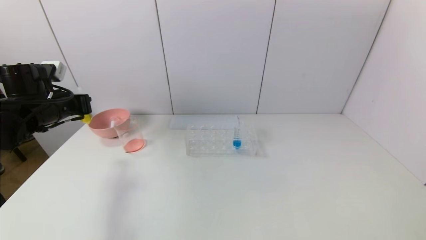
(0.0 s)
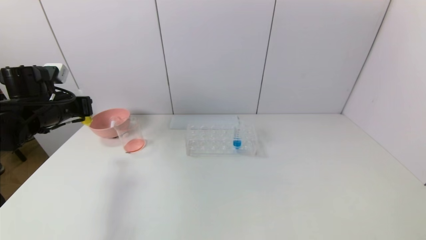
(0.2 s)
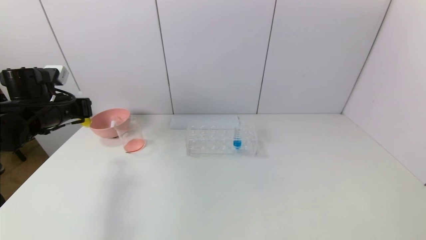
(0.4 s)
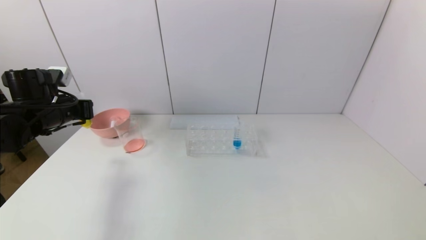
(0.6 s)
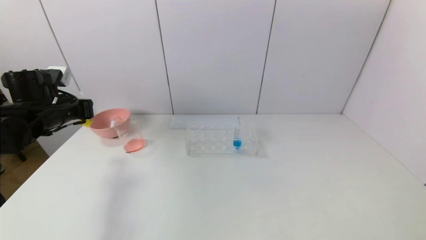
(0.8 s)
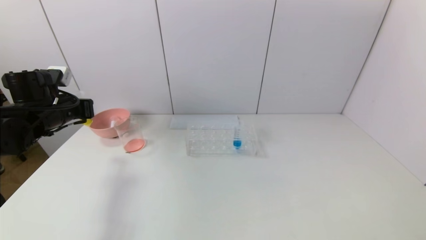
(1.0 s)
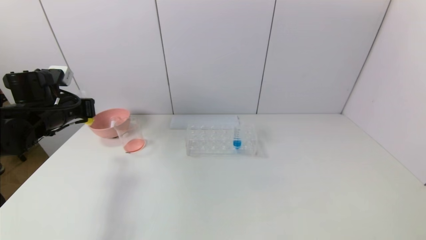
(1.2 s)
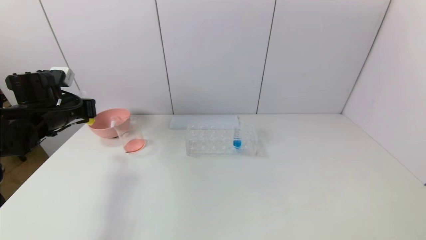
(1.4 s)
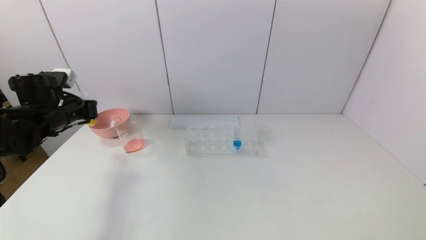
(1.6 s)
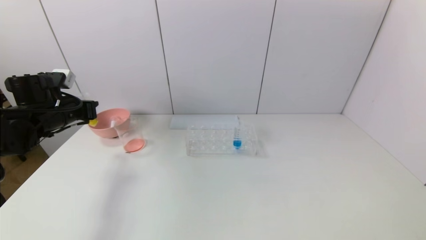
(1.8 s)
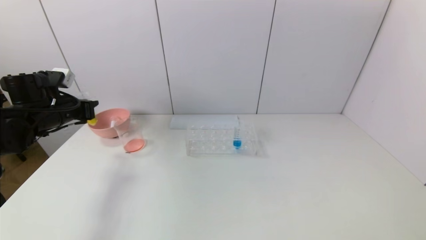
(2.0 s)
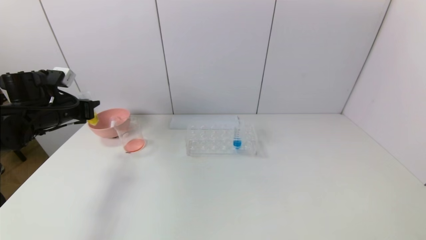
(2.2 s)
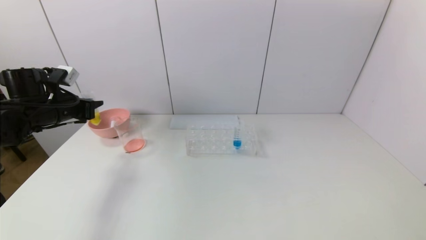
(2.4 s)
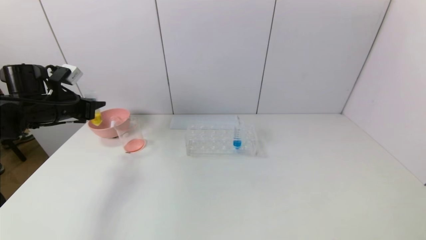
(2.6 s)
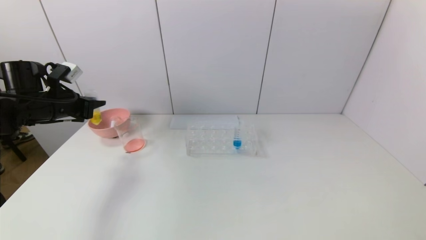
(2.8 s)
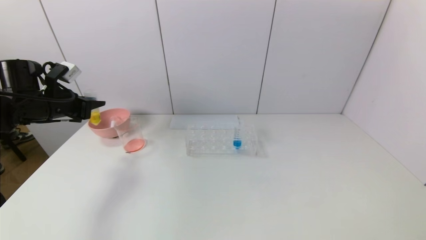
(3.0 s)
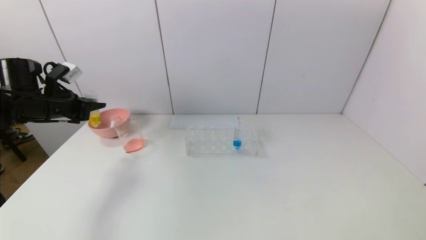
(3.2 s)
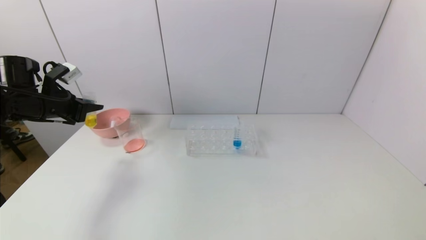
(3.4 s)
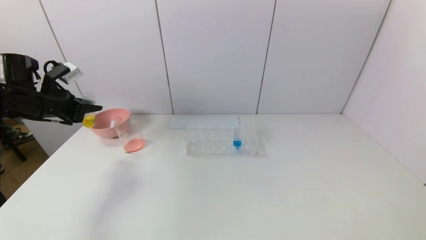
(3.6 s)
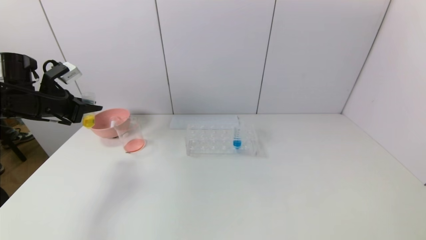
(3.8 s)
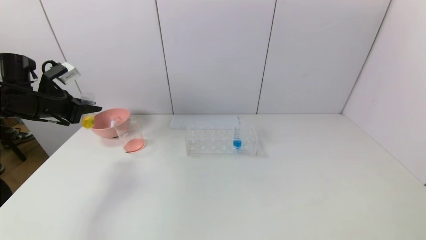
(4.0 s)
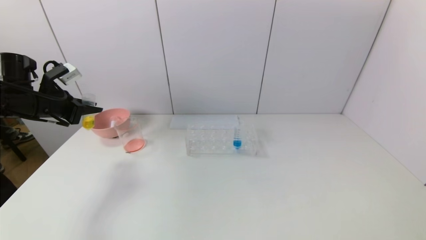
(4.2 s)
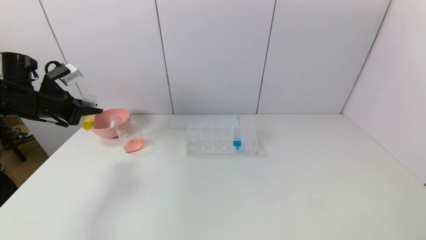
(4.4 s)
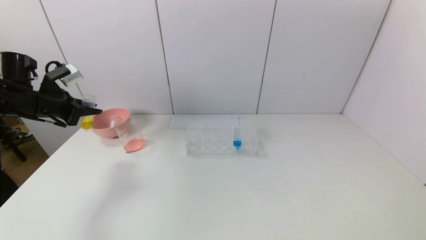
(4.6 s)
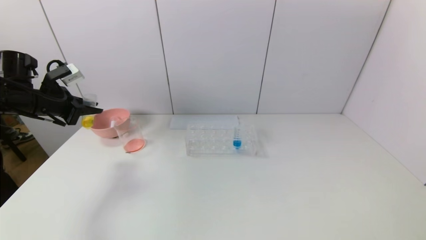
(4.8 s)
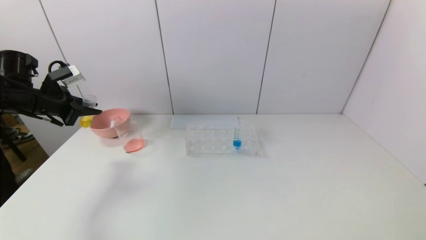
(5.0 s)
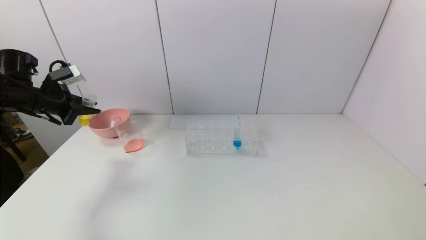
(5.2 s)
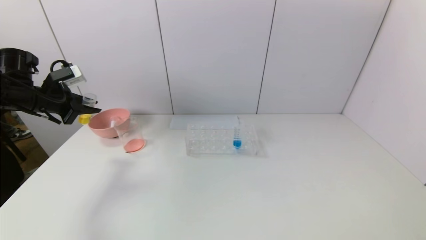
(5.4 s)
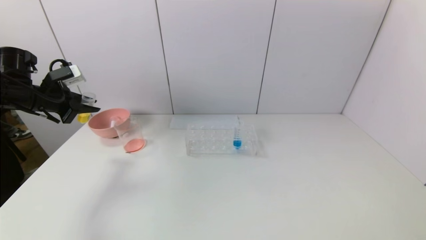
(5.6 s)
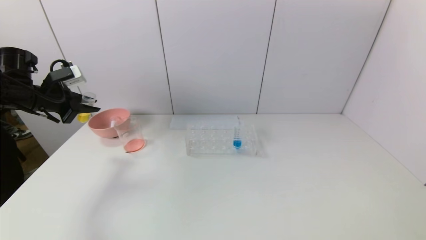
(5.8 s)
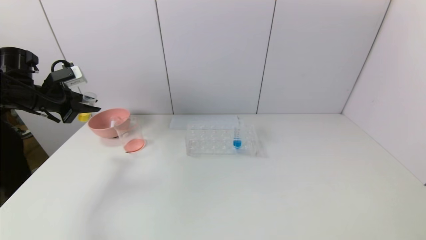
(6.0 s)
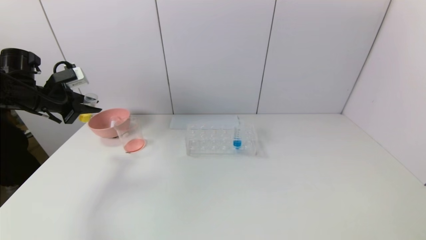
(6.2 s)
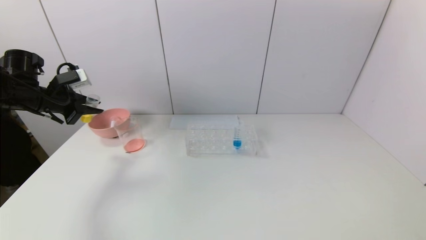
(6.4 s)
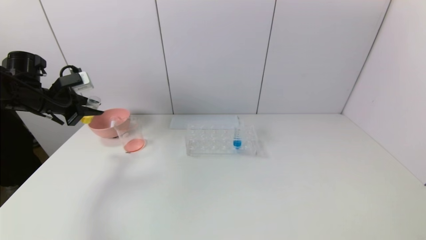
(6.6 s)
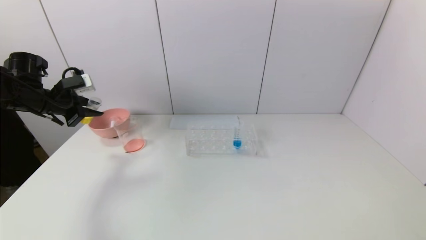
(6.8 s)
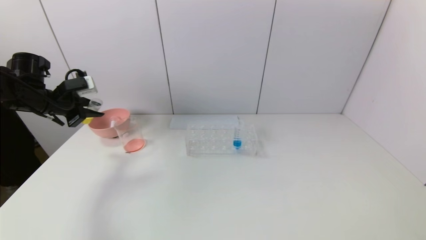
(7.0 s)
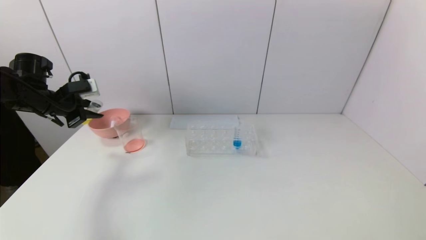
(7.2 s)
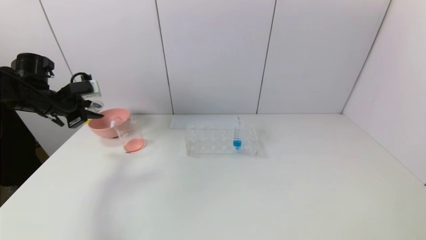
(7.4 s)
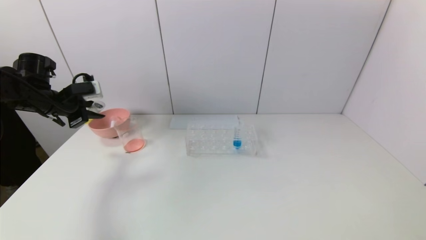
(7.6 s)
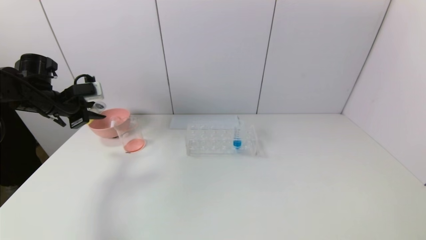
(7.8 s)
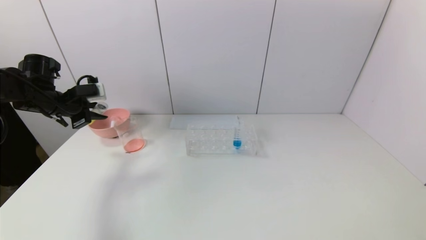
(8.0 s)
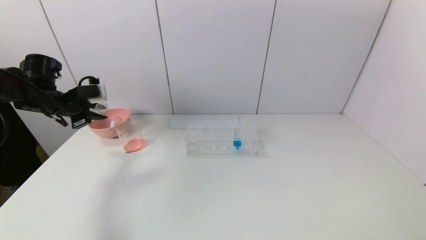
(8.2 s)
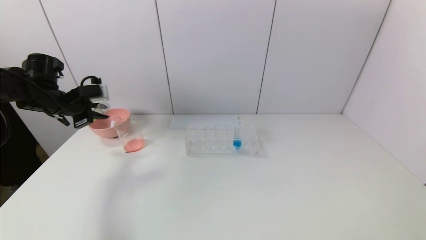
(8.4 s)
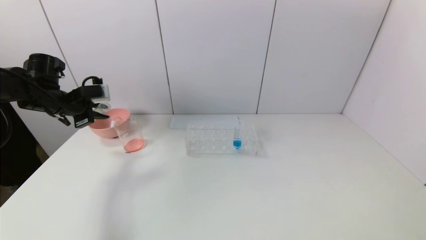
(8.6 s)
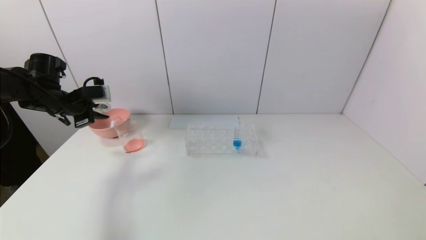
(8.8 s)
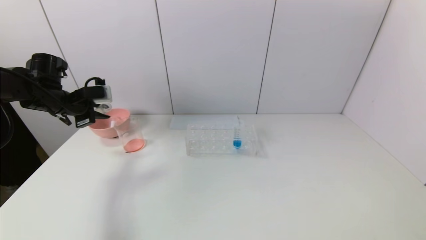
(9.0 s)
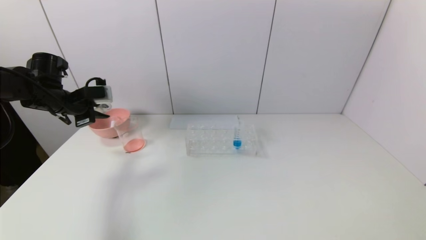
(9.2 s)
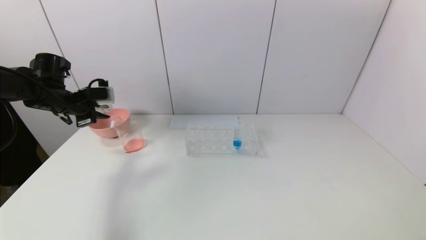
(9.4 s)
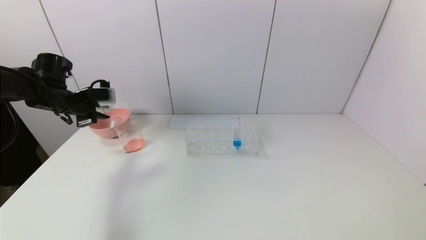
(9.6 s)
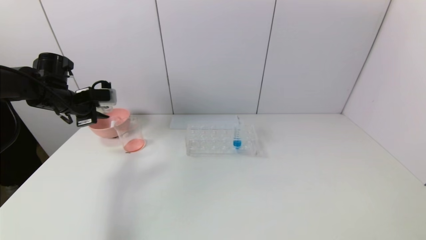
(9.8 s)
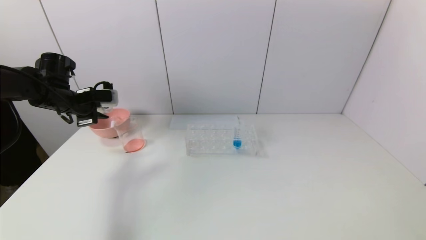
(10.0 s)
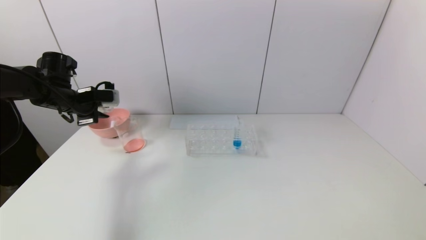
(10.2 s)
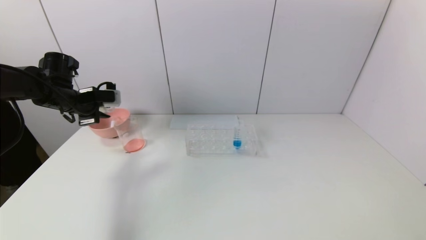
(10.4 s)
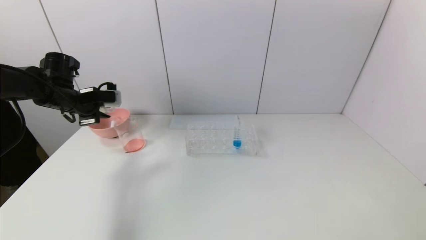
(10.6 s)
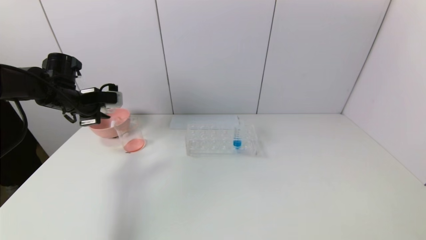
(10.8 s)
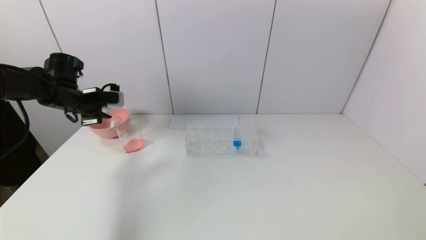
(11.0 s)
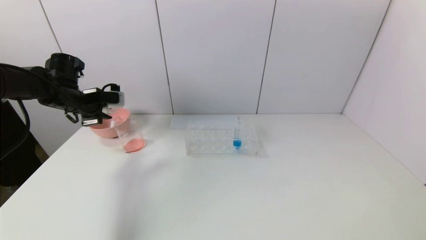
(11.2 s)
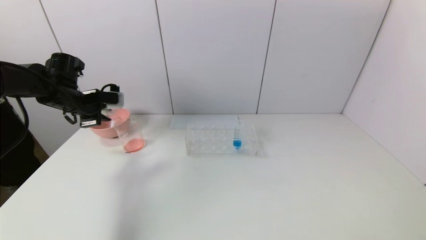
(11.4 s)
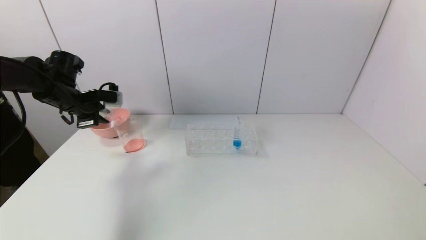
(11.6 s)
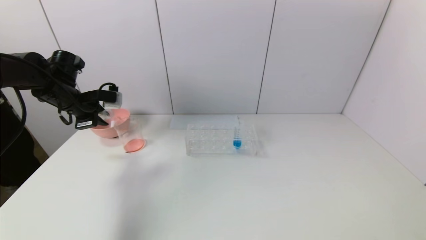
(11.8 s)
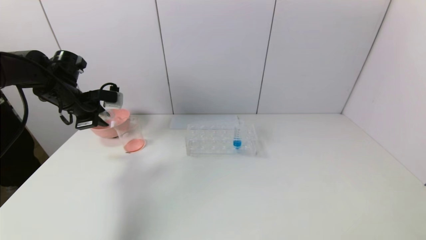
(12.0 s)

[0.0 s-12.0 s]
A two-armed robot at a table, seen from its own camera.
Task of the whole recording: pick up the test tube with yellow pigment and the test tube with red pigment by grippers and pour them into the beaker.
0.0 to 1.6 s: There are only small adjustments of the grippers.
3.0 to 4.4 s: The grippers make only small movements.
6.0 to 7.6 s: The grippers stay close to where they were, moving slightly.
7.6 to 10.4 s: The grippers move only a little.
10.4 to 12.0 s: The grippers make only small movements.

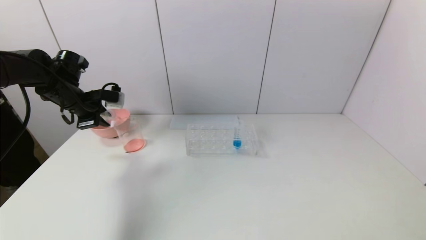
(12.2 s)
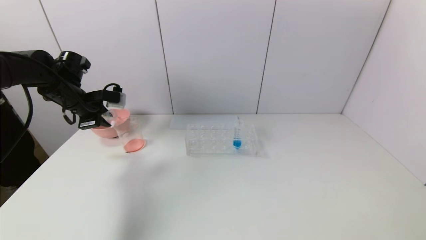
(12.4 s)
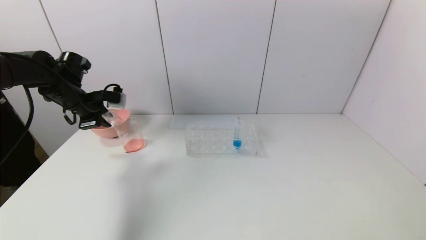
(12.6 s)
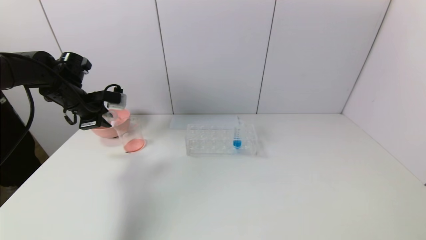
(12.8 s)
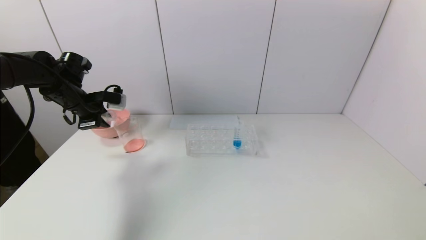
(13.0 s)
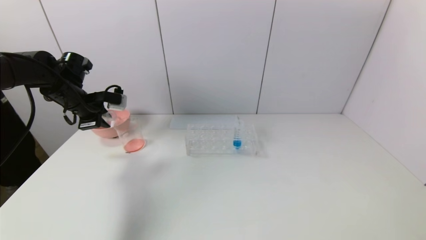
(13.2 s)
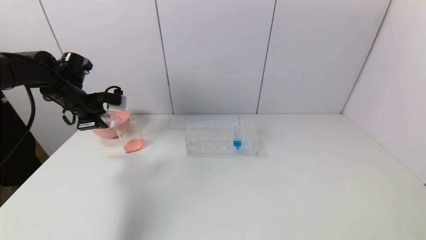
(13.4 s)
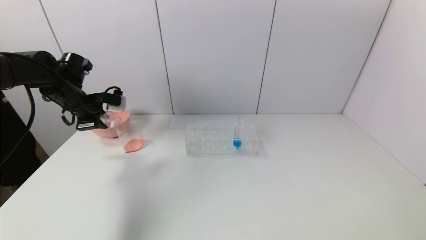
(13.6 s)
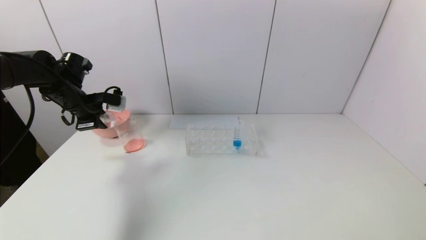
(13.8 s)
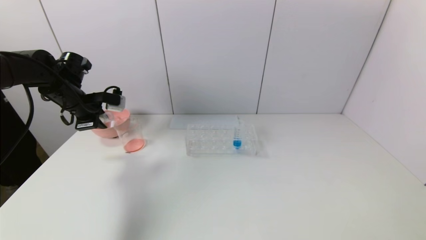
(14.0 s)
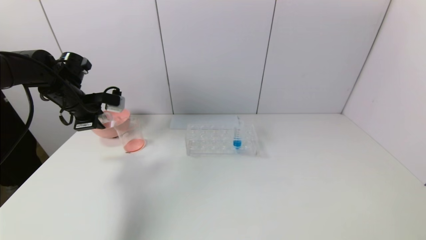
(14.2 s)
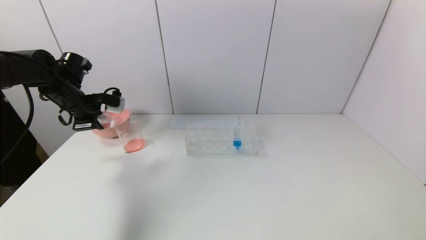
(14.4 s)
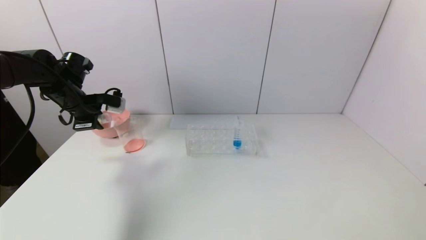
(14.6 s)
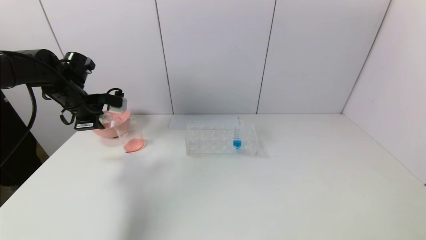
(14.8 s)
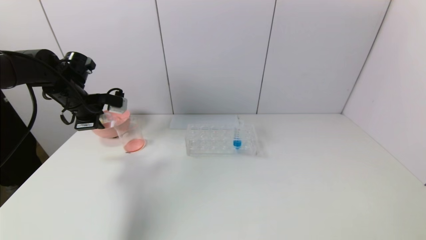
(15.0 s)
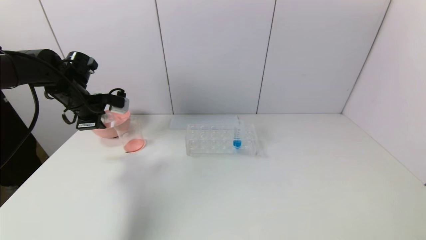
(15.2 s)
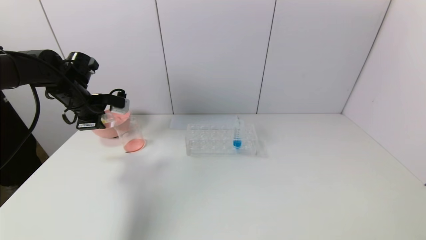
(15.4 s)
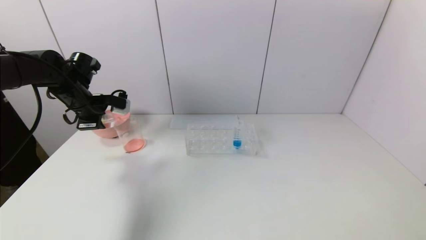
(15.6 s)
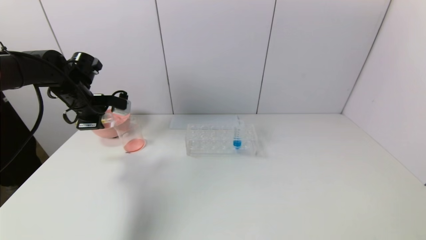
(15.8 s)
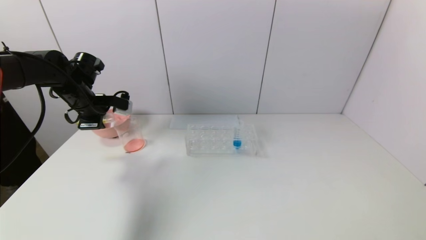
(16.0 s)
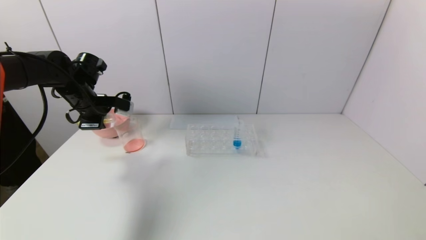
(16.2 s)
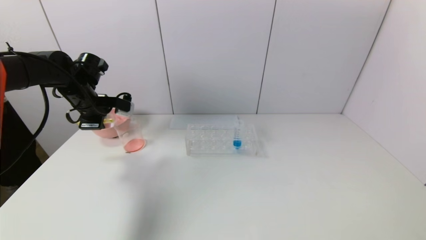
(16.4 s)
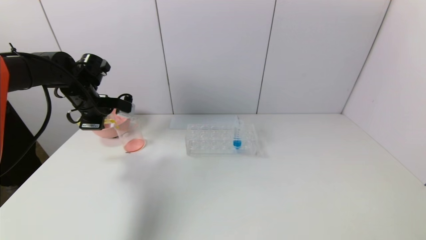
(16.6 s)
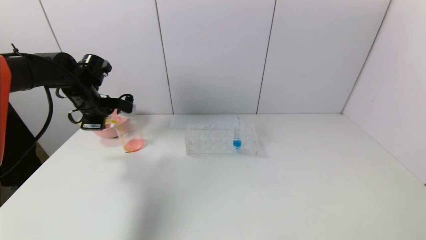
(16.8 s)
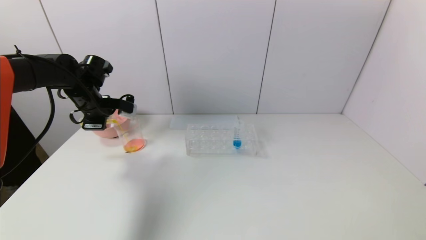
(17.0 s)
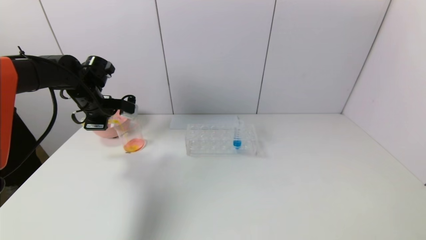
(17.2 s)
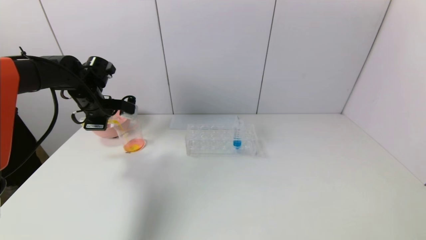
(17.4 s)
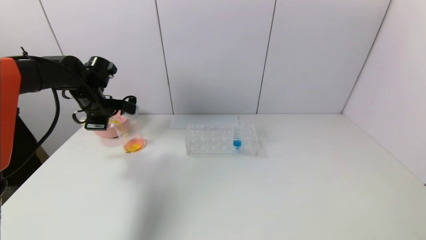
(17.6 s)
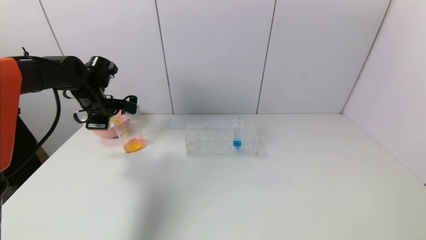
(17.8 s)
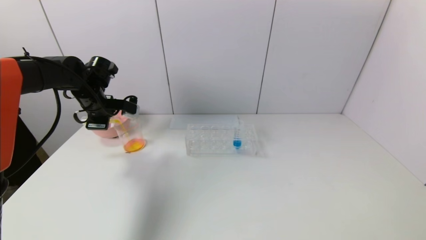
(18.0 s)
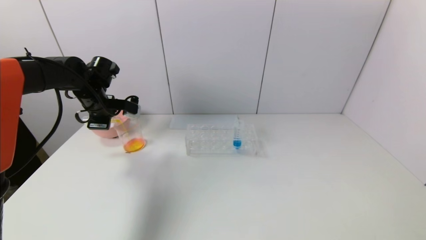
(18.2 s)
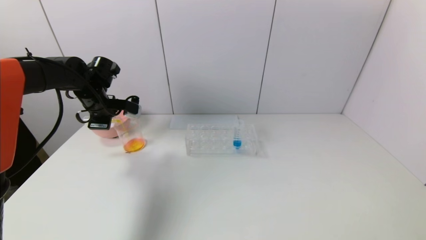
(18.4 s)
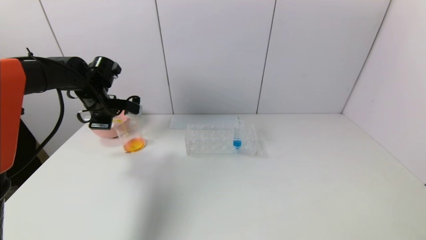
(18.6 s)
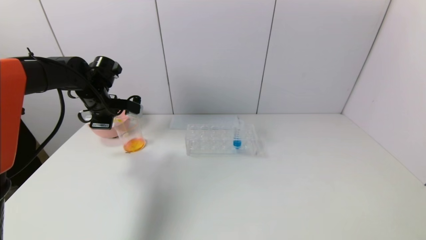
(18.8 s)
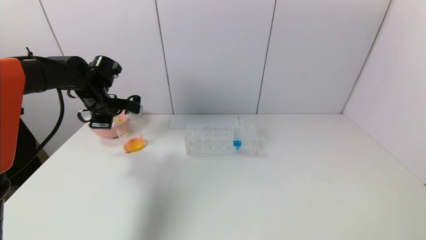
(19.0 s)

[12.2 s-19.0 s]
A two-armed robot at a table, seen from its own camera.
Task of the whole recording: pick up the test tube with yellow pigment and the test tube with red pigment by grippers and pour them into the beaker.
12.2 to 13.6 s: Both grippers stay about where they are.
13.6 to 17.6 s: The grippers make only small movements.
17.6 to 19.0 s: Both grippers stay about where they are.
